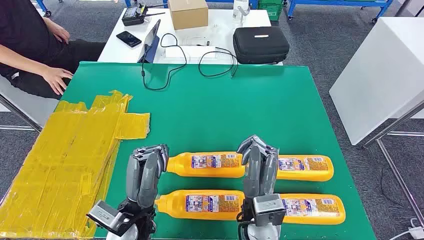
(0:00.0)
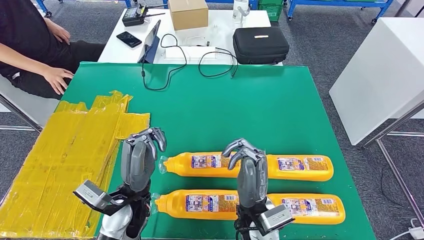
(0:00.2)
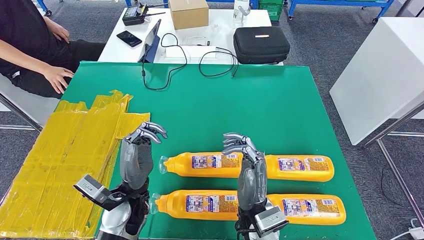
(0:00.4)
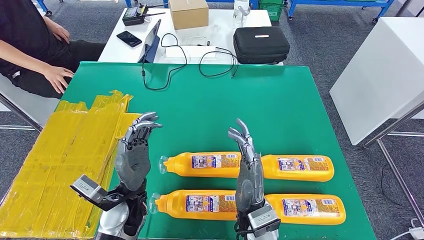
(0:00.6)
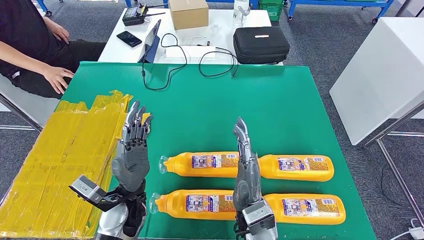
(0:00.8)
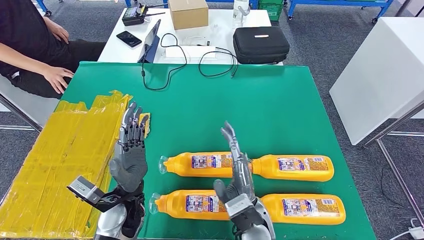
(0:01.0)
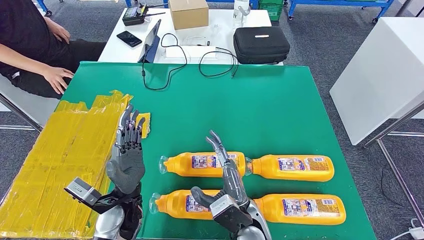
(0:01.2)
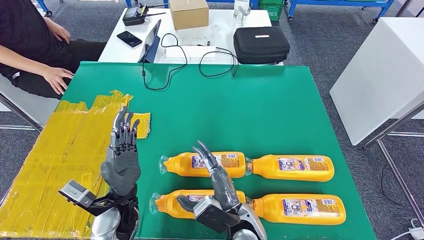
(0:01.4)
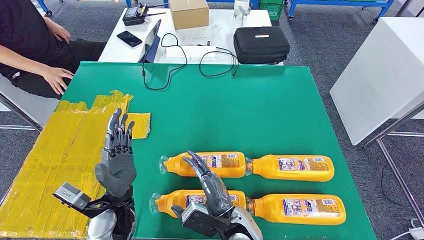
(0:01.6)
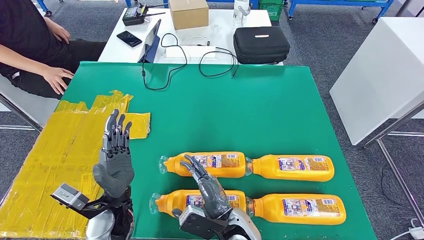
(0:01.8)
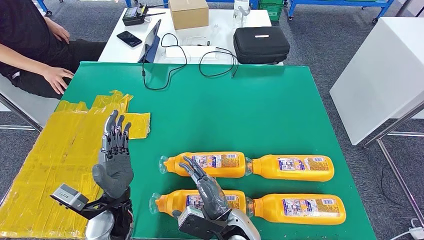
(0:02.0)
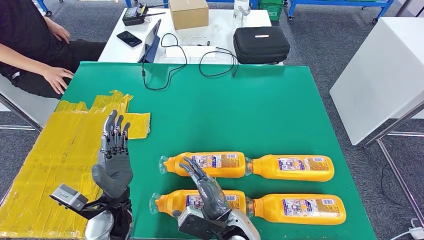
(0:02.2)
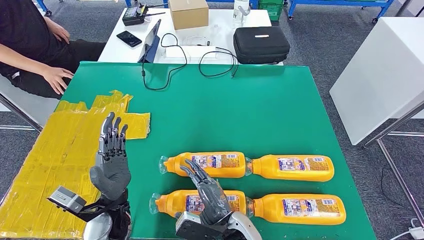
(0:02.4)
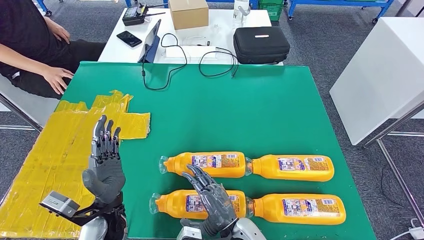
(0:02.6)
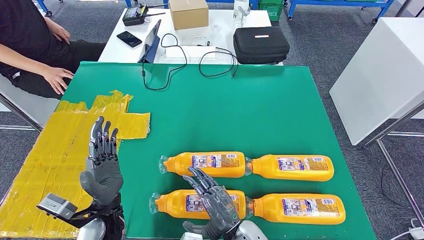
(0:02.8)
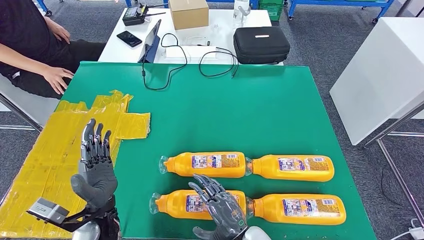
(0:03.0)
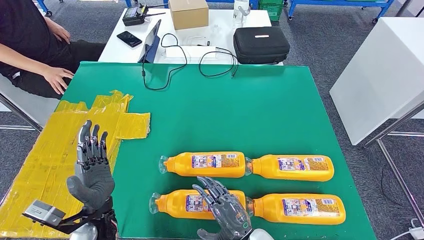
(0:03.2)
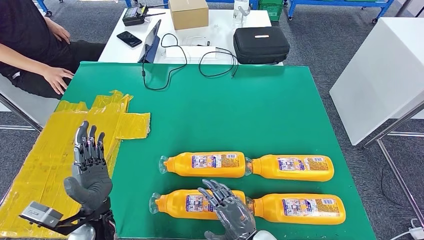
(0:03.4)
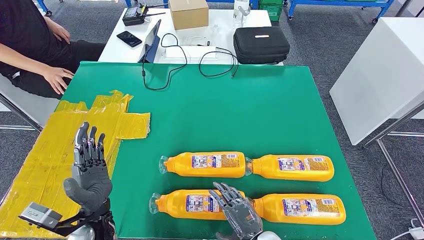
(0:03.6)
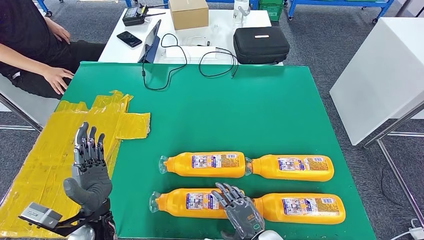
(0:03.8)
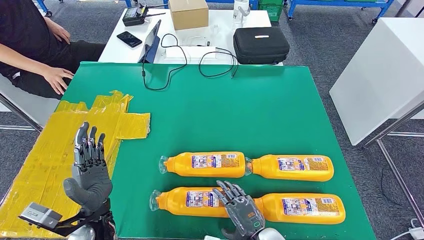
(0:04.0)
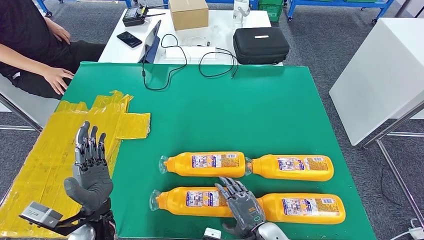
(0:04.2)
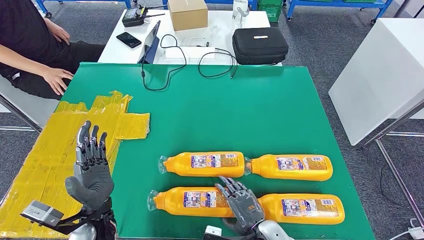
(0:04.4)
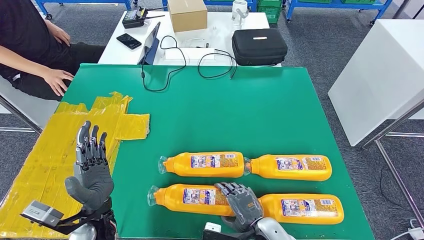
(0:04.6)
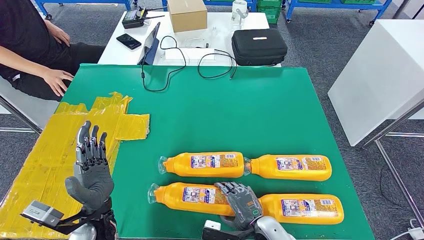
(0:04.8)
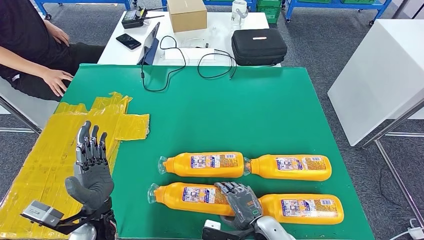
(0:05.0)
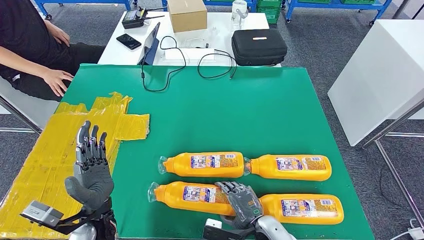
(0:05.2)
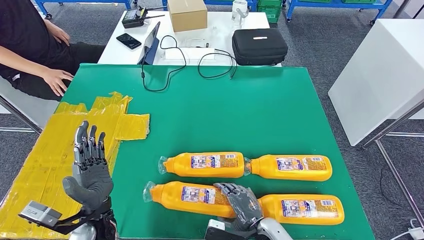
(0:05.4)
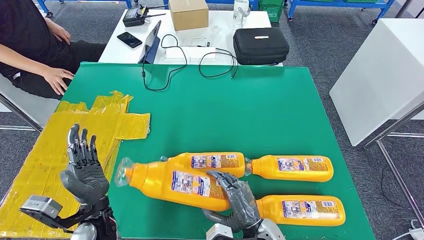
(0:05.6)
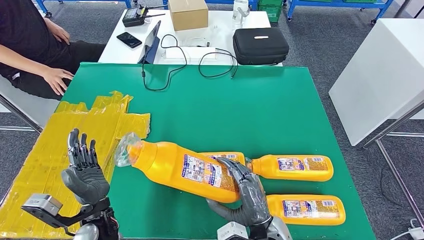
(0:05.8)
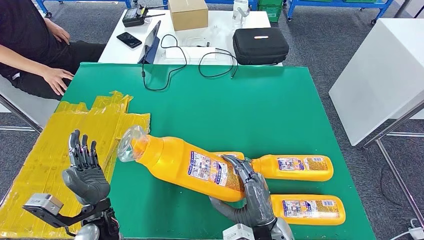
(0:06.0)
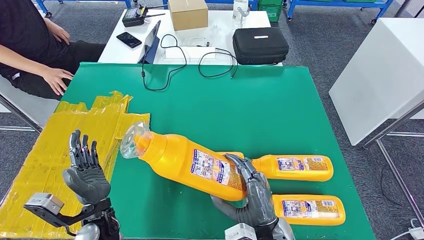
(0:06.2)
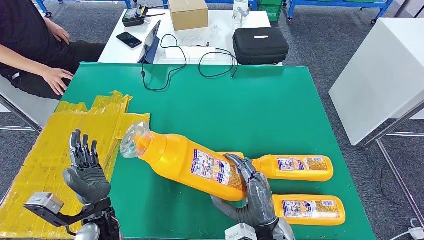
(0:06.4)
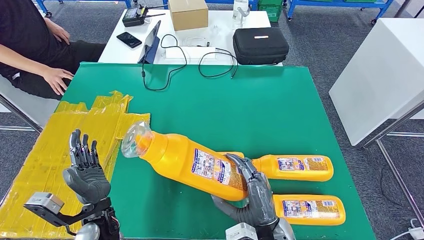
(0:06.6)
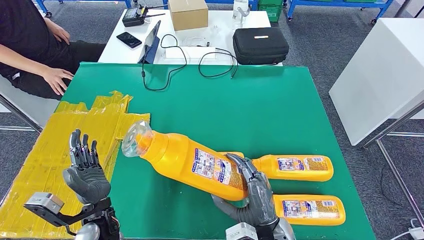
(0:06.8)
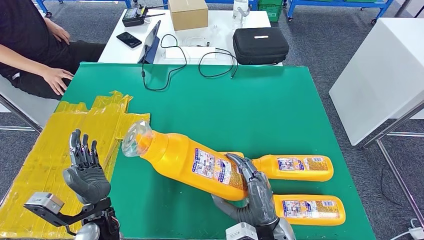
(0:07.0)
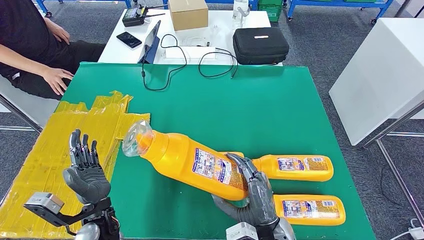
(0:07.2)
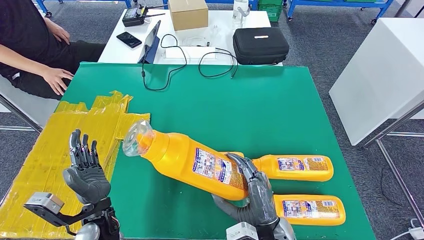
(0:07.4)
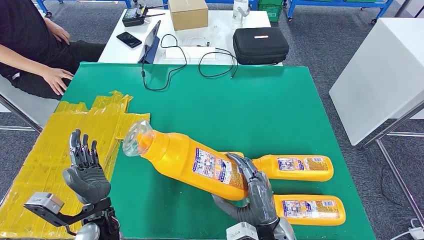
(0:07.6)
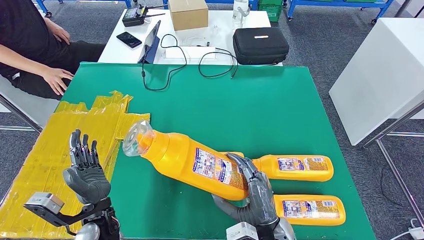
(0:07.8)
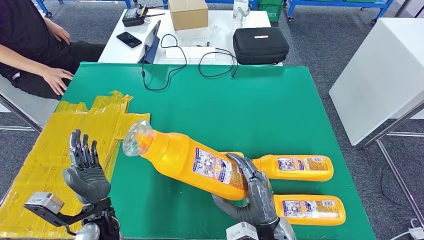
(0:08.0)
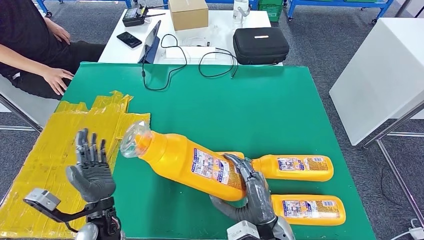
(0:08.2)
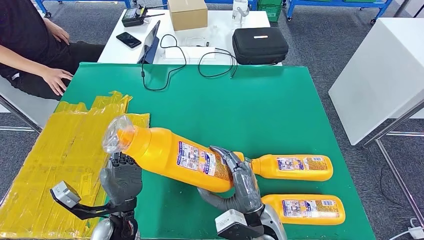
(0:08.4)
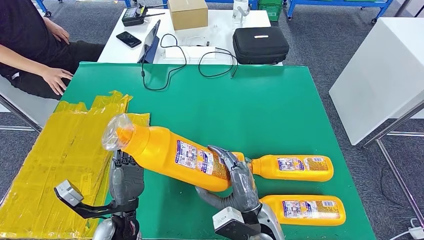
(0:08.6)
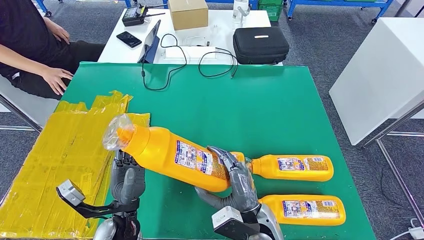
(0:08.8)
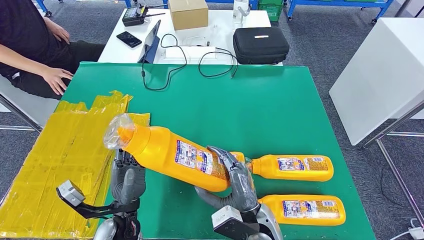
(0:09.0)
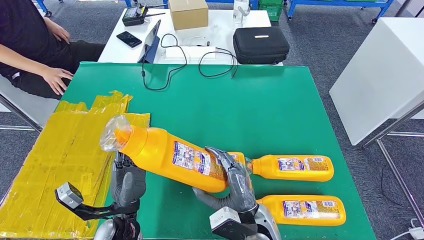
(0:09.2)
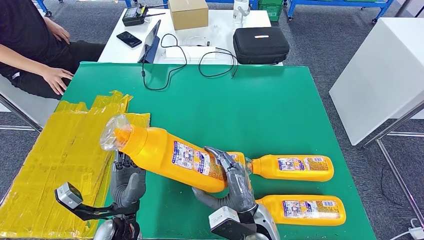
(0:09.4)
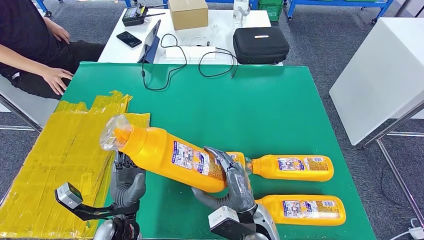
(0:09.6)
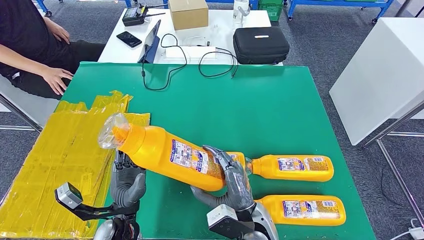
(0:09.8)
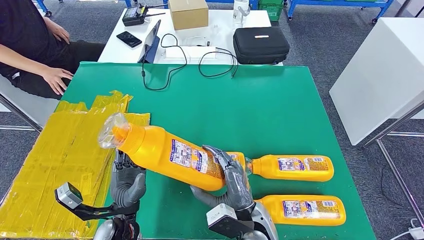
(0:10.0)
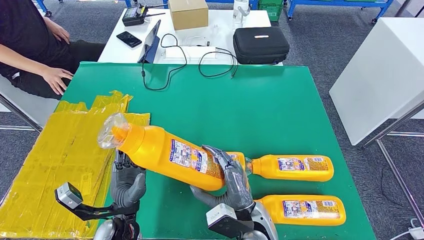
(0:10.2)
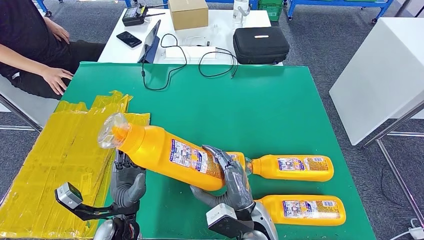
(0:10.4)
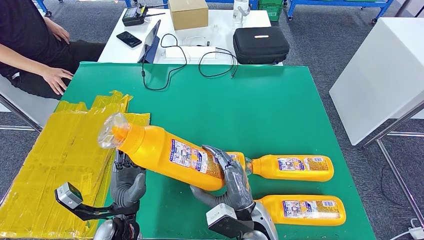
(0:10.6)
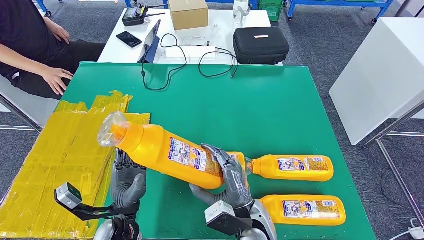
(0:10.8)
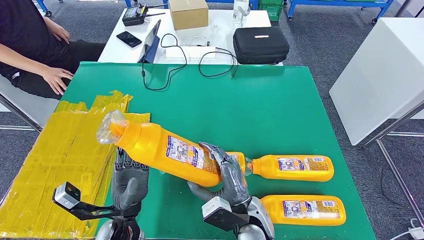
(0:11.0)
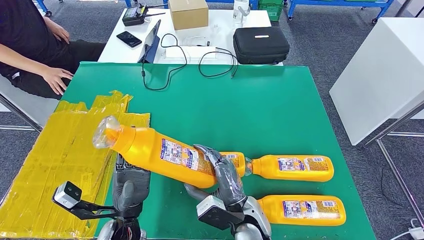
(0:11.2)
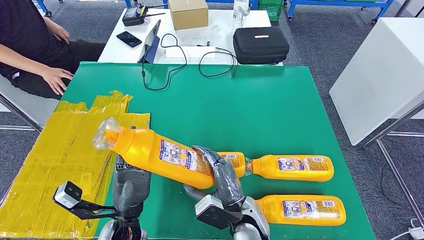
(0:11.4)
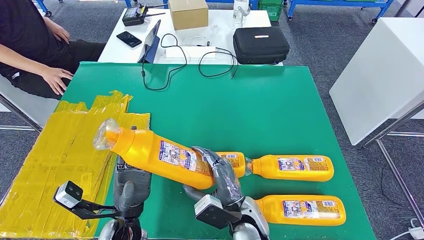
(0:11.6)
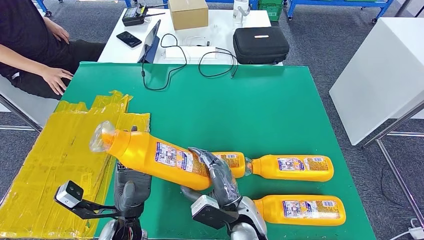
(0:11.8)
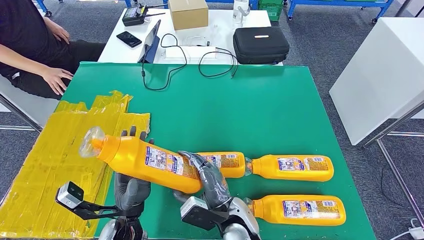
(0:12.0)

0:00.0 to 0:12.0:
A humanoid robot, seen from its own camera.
Step, 0:00.0 to 0:07.4: Take the bottle from the table.
0:01.6 to 0:03.0: The right hand shifts by some 5 cm.
0:03.0 to 0:04.4: The right hand moves to the right, roughly 5 cm.
0:04.4 to 0:06.0: The right hand shifts about 10 cm upward.
0:06.0 to 0:07.6: Both hands stay about where they are.
0:07.6 to 0:09.0: The left hand moves to the right, about 5 cm.
0:09.0 to 0:10.4: The hands make only small movements.
0:10.4 to 0:12.0: The hands move only a little.

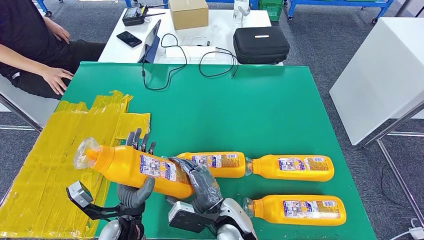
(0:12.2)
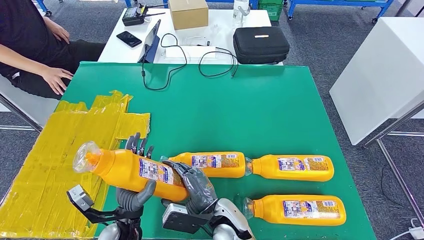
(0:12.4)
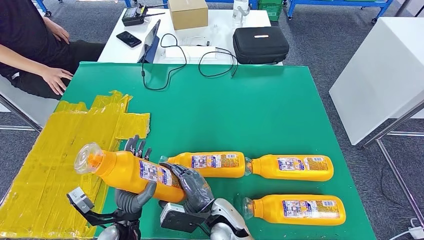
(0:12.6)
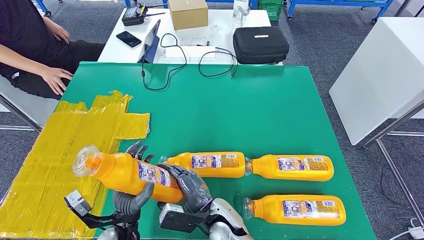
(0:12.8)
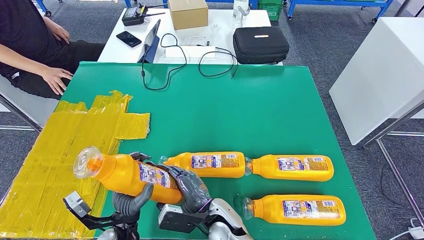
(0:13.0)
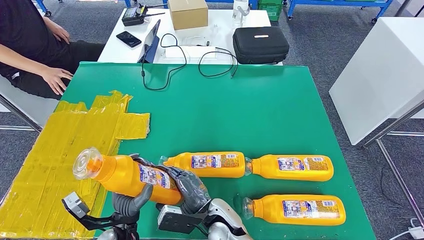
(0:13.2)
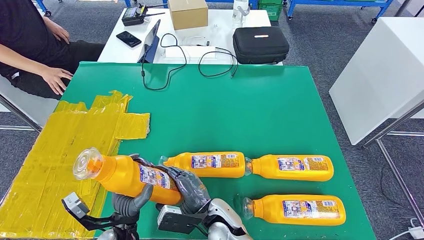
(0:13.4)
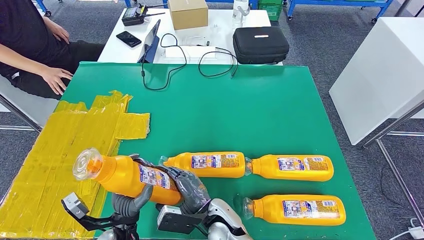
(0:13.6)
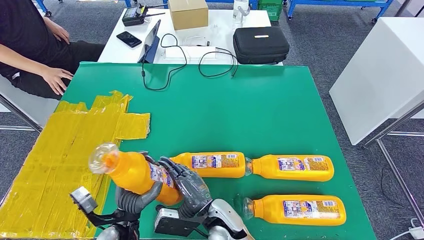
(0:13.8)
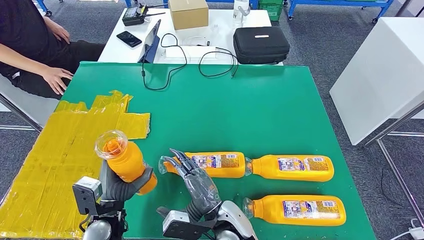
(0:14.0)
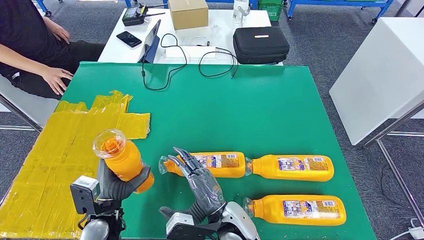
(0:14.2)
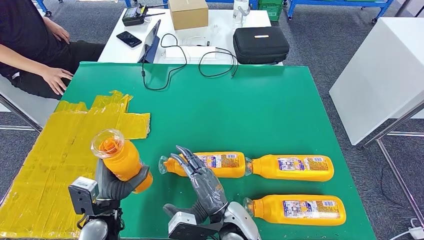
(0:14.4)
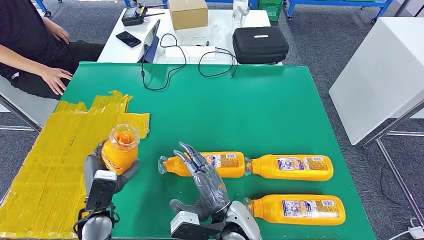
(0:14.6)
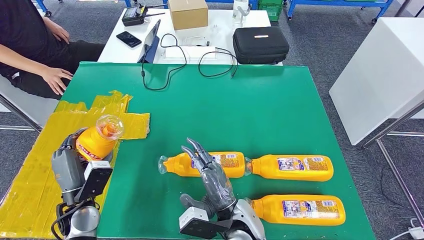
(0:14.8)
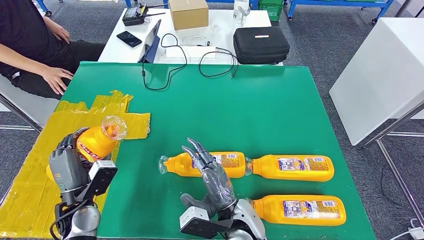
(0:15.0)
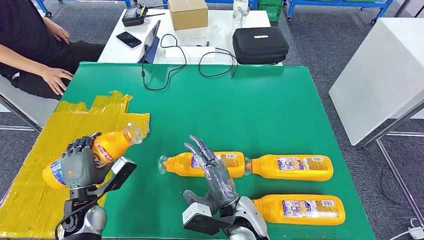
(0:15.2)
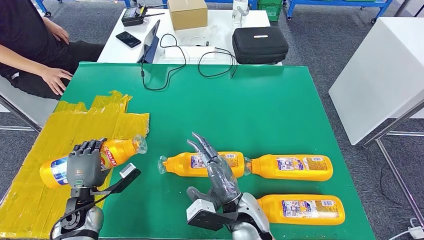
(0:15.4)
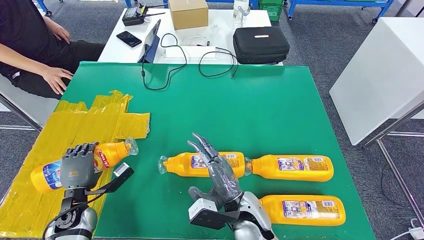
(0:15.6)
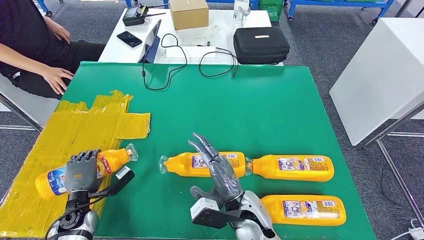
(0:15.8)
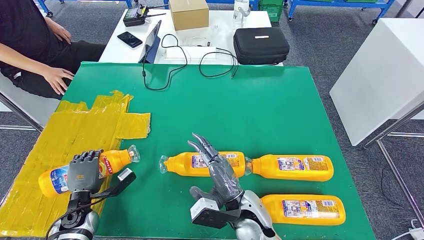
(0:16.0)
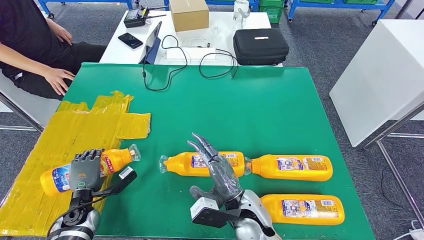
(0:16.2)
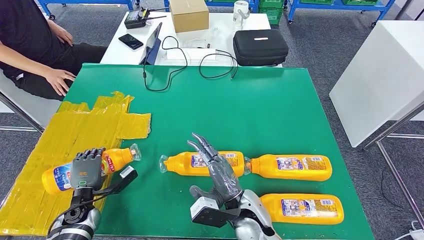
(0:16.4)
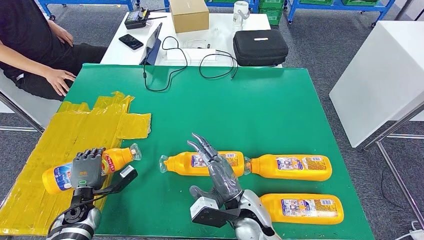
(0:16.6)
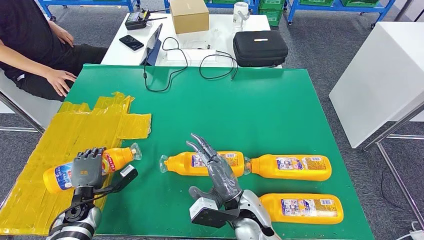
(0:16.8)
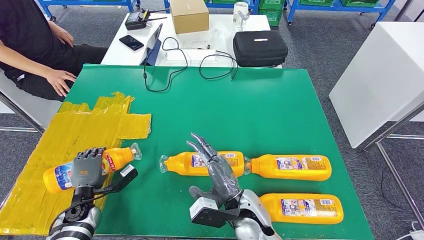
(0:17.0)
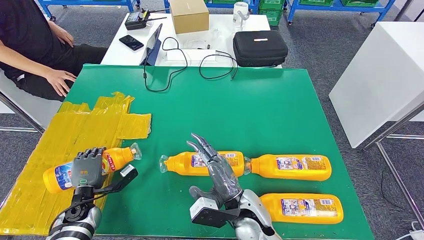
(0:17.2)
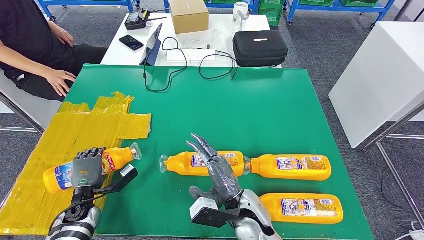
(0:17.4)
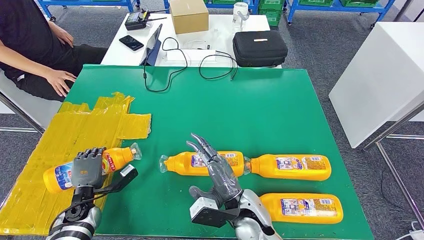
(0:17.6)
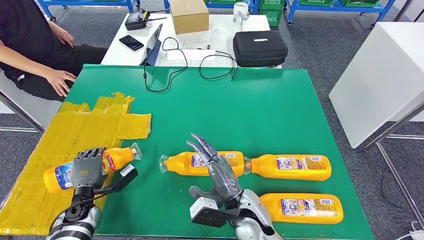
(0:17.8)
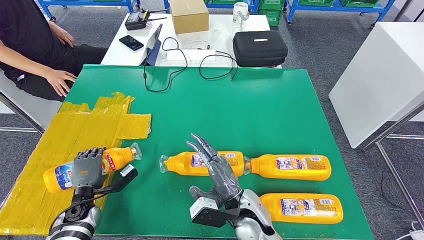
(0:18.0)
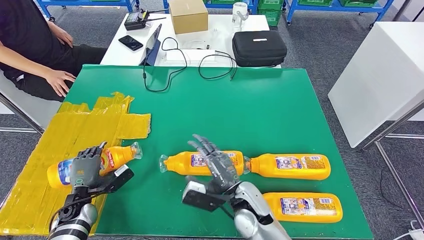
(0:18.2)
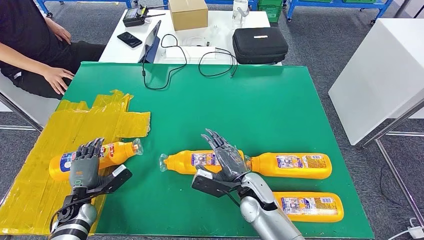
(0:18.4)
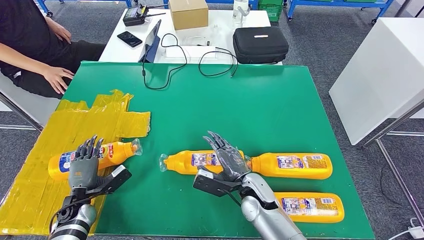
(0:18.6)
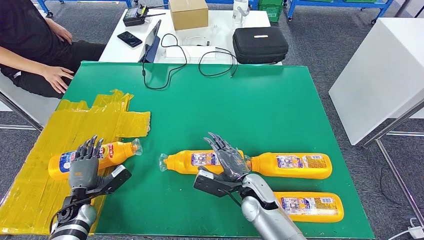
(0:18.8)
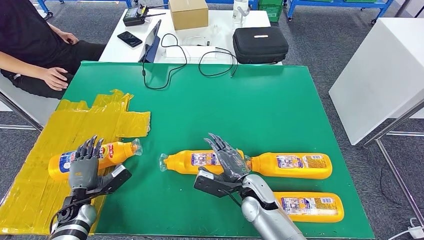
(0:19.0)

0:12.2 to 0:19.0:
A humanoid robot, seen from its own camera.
Step, 0:12.2 to 0:17.4: Flip the bottle to face forward.
0:12.2 to 0:13.6: The hands move only a little.
0:13.6 to 0:15.0: The left hand goes roughly 10 cm to the left, while the right hand travels upward by approximately 5 cm.
0:15.0 to 0:16.2: The left hand shifts approximately 10 cm downward and to the left.
0:16.2 to 0:17.6: Both hands stay about where they are.
